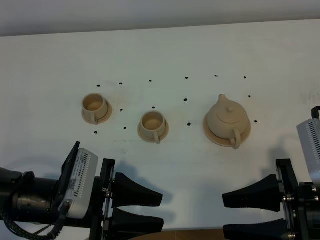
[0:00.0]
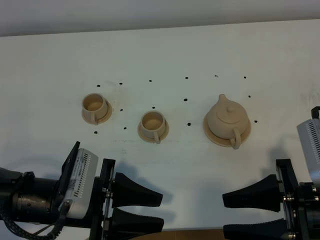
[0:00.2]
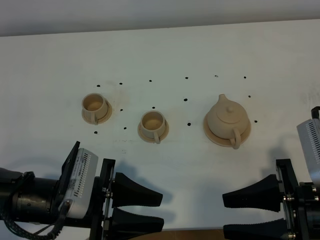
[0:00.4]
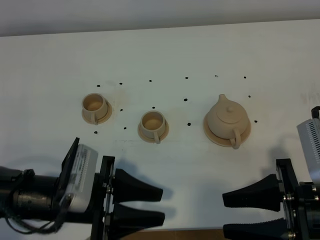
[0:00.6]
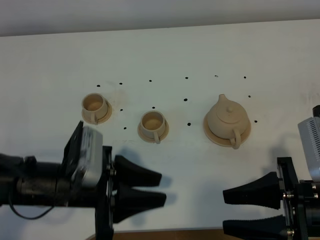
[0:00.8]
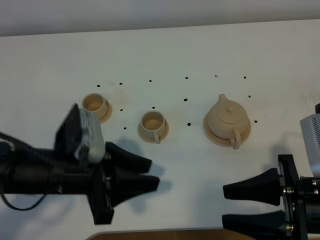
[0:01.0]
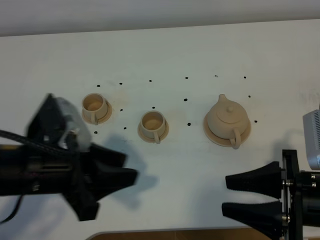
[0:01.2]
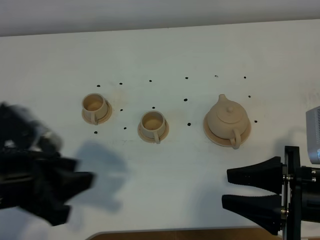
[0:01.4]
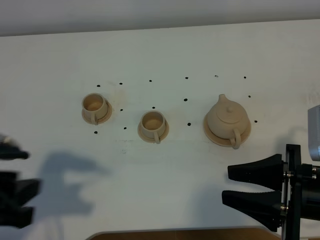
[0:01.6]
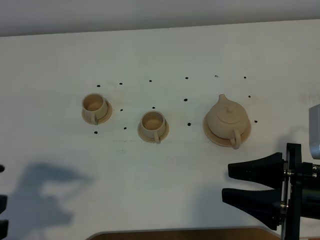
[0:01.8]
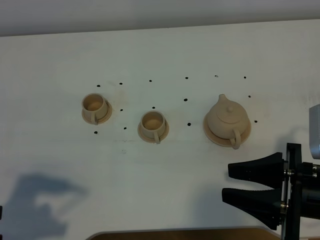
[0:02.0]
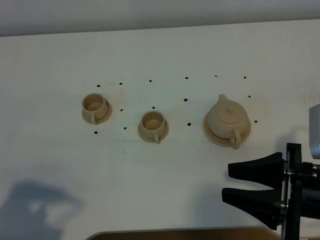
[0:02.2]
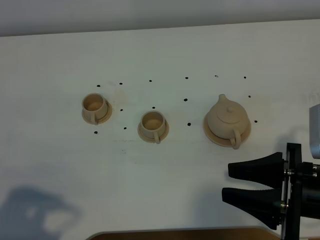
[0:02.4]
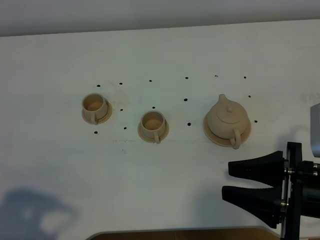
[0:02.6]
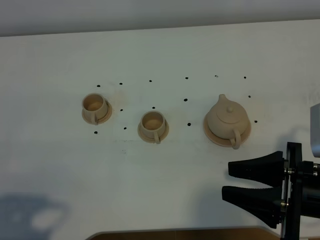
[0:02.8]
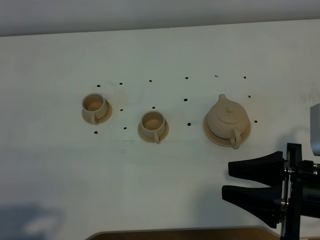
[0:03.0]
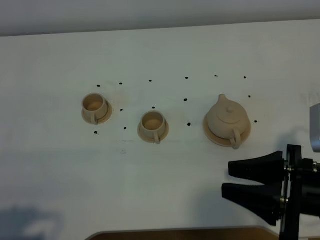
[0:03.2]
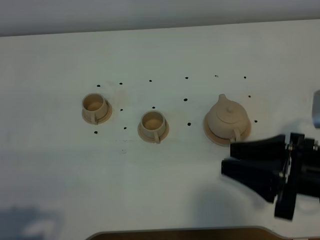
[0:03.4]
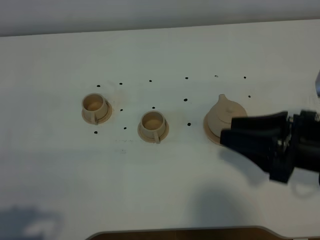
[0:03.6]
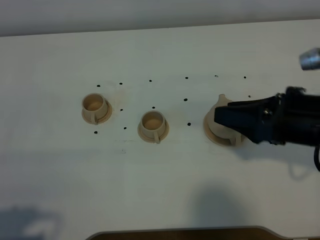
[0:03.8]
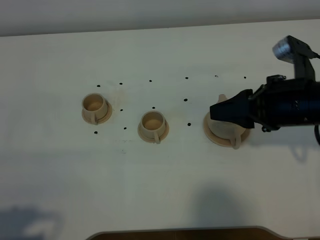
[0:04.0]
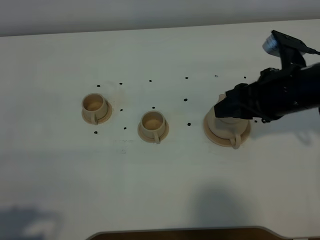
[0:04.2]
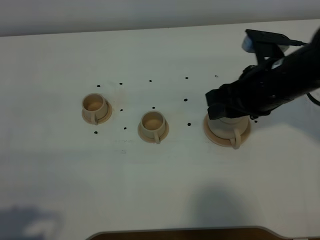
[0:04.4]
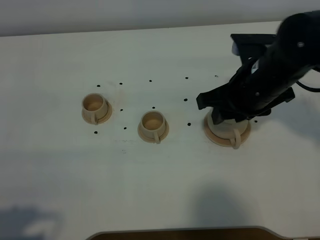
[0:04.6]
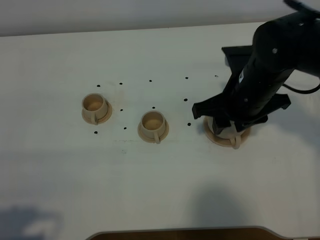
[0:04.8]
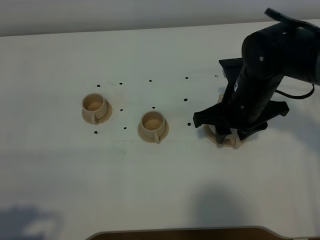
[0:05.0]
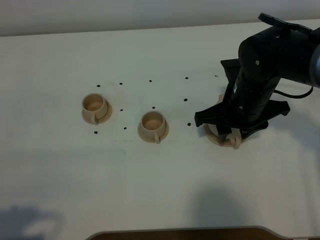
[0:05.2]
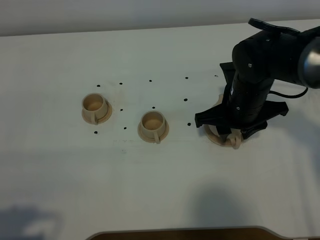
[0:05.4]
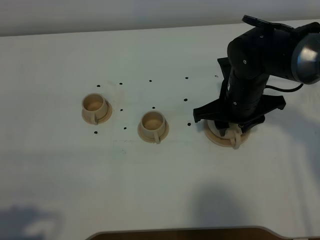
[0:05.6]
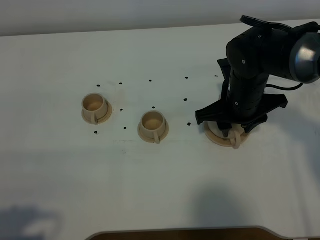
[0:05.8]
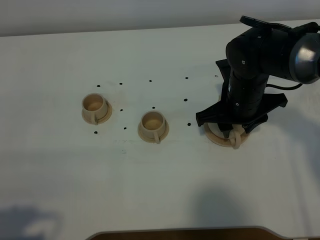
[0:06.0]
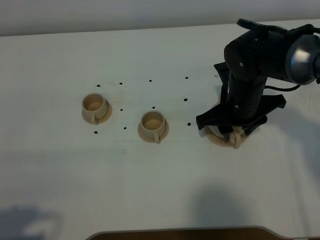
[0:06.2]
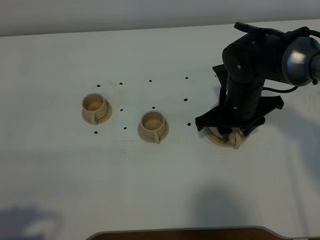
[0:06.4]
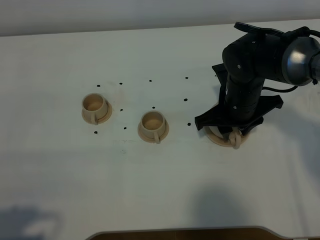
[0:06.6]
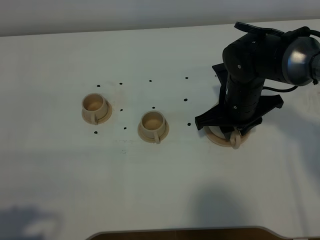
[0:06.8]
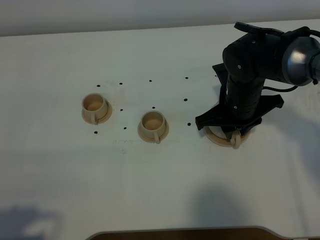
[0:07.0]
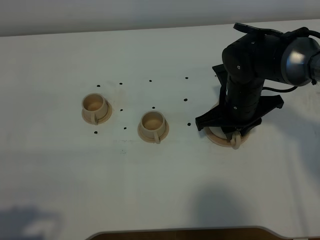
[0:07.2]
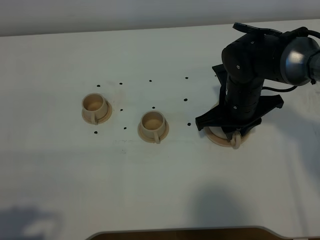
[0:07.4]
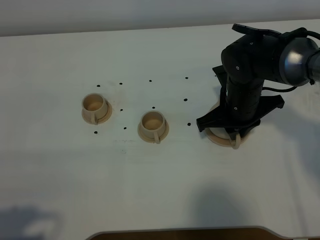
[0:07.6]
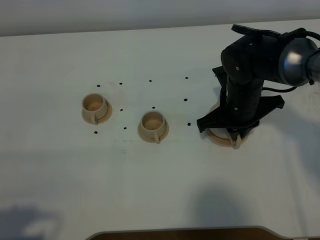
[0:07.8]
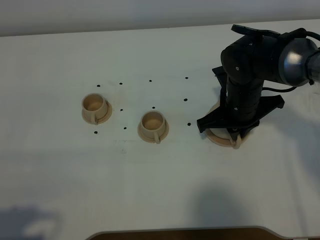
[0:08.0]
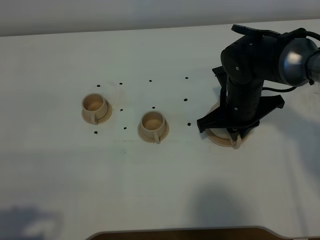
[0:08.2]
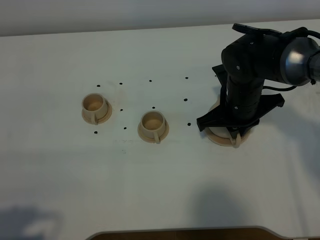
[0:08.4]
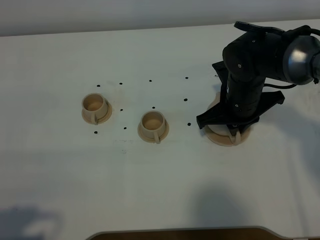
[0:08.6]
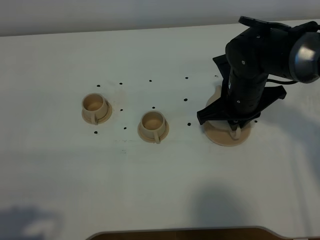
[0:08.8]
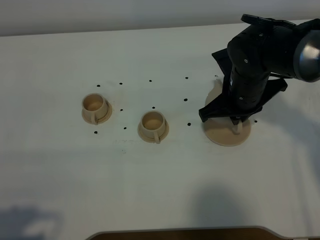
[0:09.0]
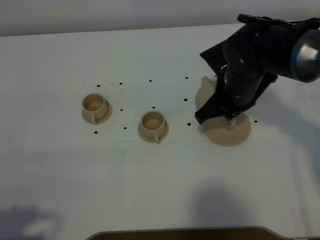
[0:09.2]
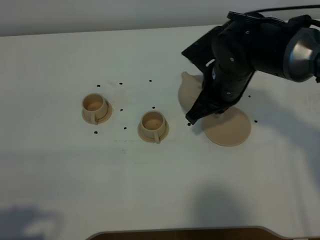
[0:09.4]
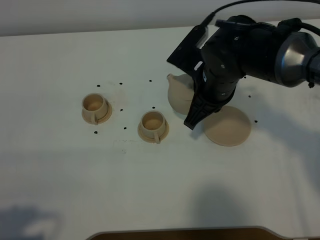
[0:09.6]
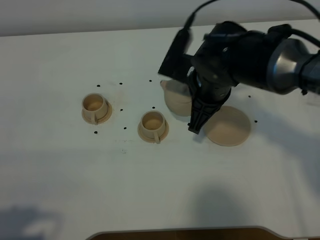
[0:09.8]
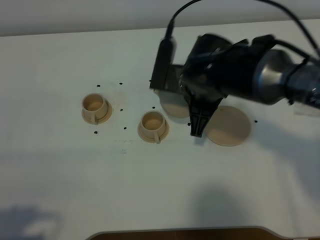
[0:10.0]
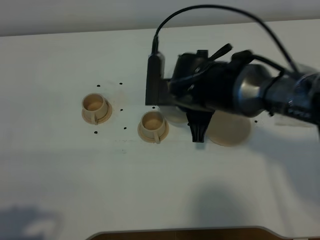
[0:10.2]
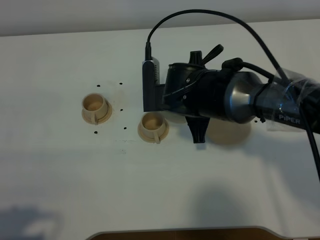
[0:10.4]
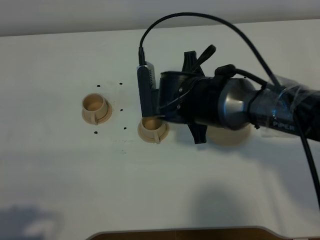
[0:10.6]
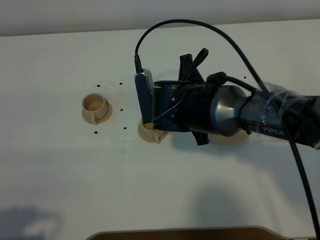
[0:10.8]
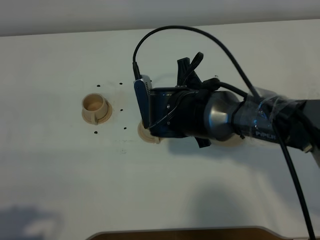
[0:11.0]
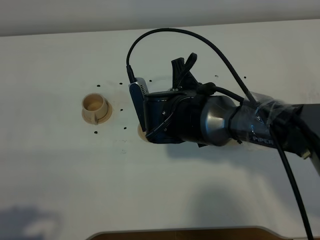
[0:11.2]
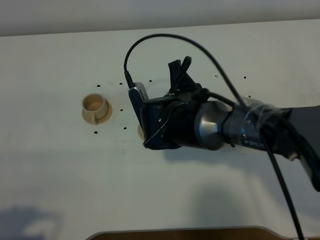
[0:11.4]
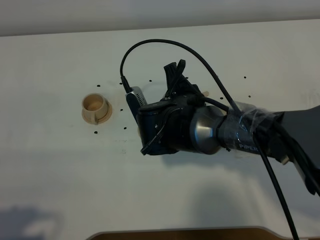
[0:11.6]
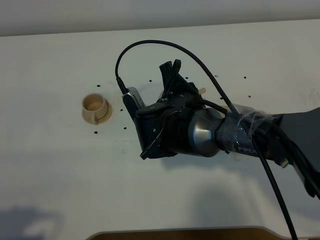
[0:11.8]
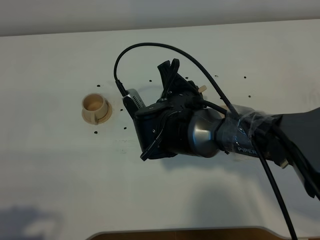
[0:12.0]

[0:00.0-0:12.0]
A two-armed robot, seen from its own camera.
Task of the whole recording: grasp the brown teapot and pour the tea into the two brown teacups one by one, put the brown teapot back in its original place.
Step, 0:00.0 to 0:08.6: Pick up the teapot with the right gripper.
0:00.0 to 0:01.6: The left gripper shifts roughly 15 cm upward and to the left.
0:01.6 to 0:03.0: The left gripper goes roughly 10 cm backward and to the left.
0:03.0 to 0:04.4: The right gripper heads forward, covering some 15 cm.
0:04.4 to 0:06.0: The right gripper shifts about 5 cm downward.
0:06.0 to 0:07.6: The right gripper closes.
0:07.6 to 0:09.0: The grippers make only small movements.
0:09.0 to 0:10.4: The right gripper travels to the left by approximately 10 cm.

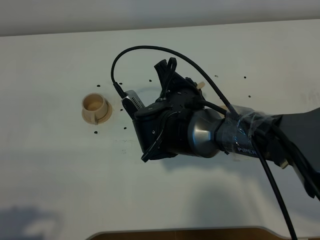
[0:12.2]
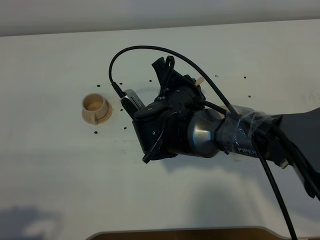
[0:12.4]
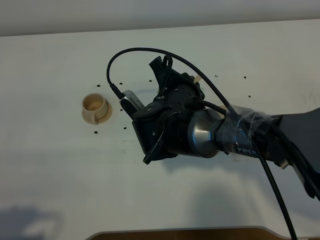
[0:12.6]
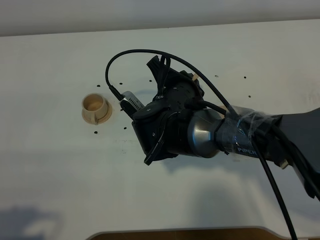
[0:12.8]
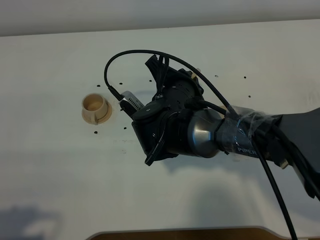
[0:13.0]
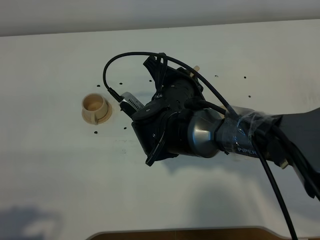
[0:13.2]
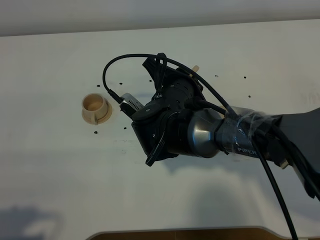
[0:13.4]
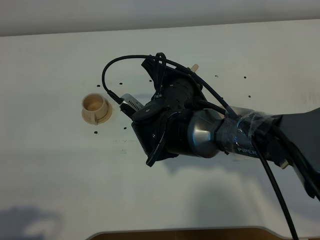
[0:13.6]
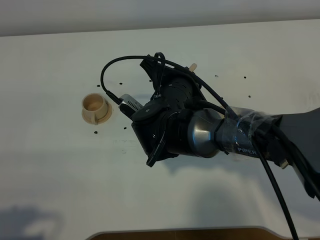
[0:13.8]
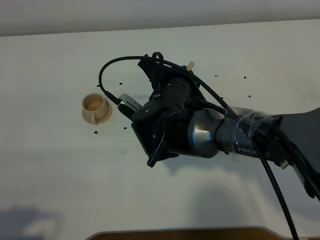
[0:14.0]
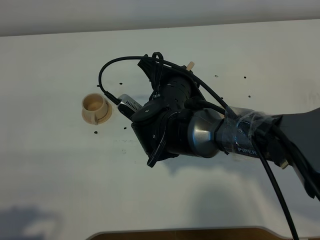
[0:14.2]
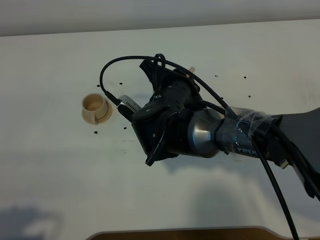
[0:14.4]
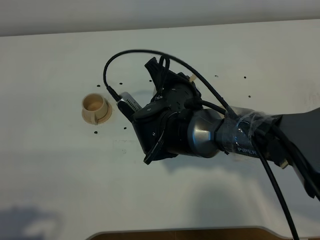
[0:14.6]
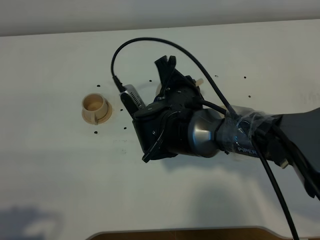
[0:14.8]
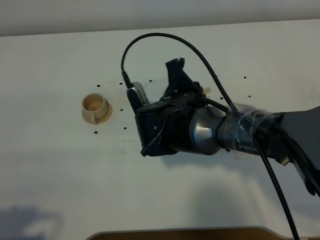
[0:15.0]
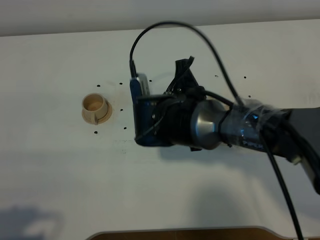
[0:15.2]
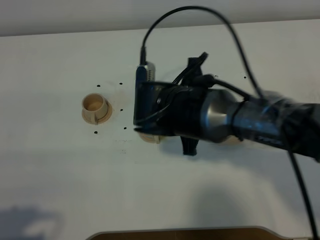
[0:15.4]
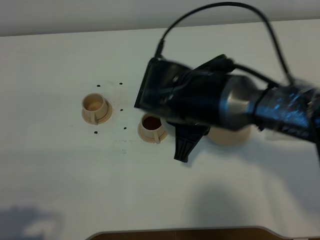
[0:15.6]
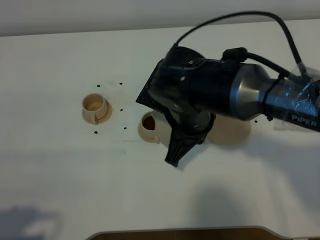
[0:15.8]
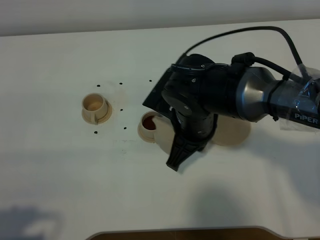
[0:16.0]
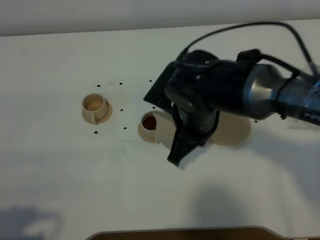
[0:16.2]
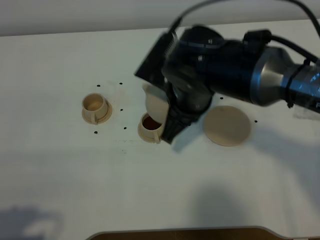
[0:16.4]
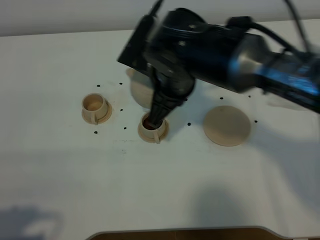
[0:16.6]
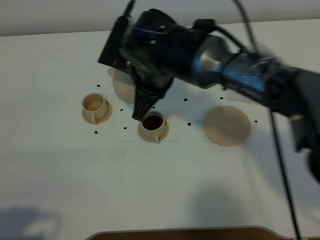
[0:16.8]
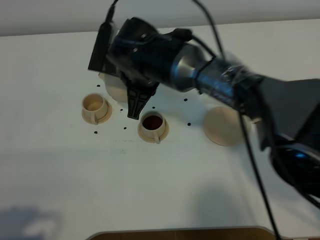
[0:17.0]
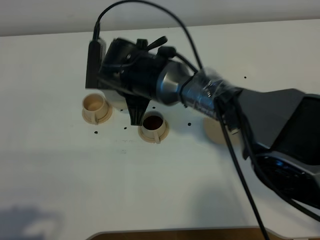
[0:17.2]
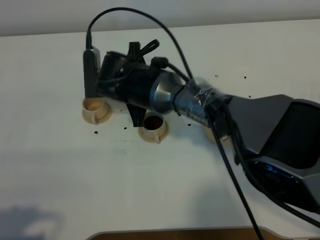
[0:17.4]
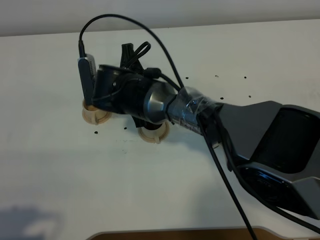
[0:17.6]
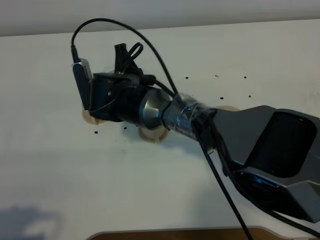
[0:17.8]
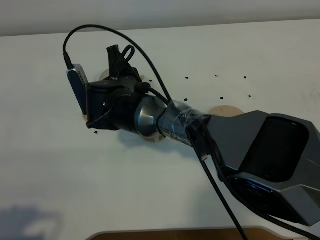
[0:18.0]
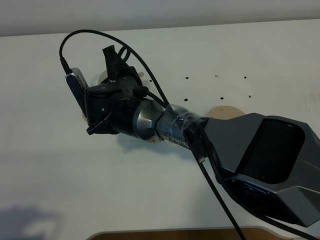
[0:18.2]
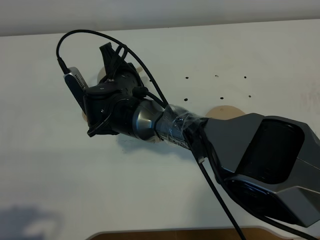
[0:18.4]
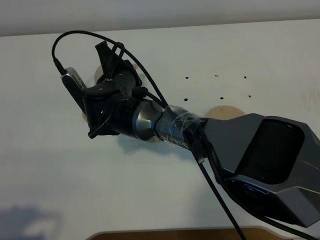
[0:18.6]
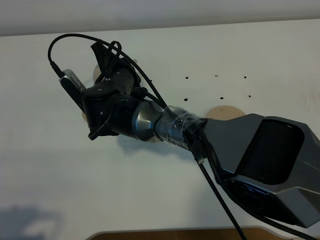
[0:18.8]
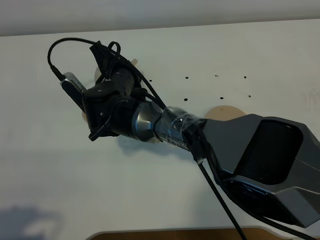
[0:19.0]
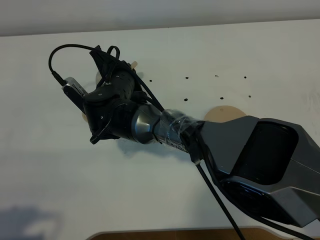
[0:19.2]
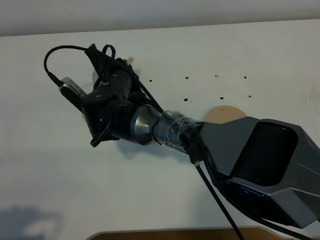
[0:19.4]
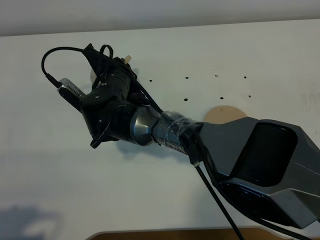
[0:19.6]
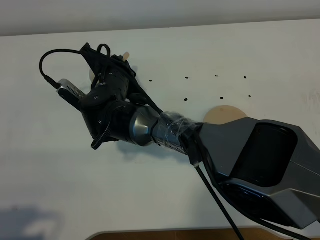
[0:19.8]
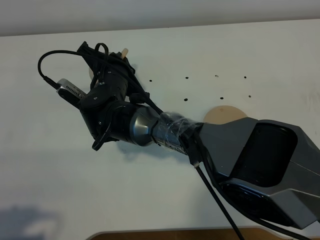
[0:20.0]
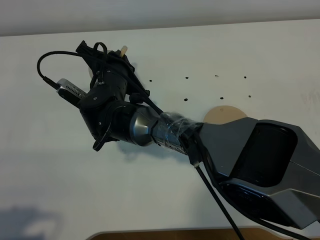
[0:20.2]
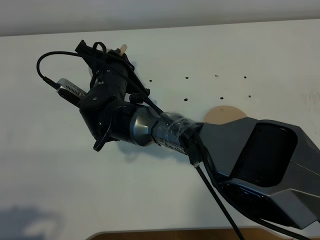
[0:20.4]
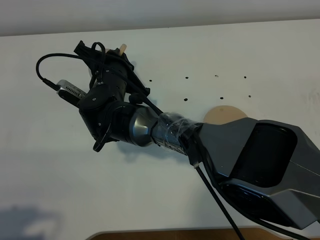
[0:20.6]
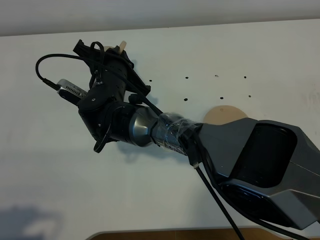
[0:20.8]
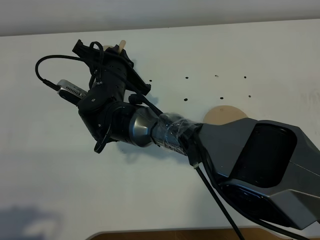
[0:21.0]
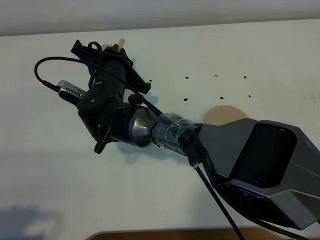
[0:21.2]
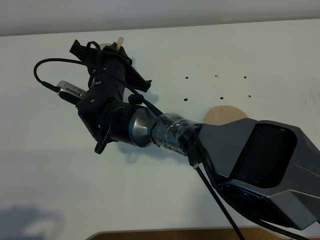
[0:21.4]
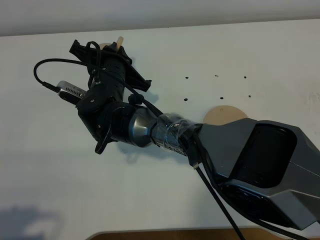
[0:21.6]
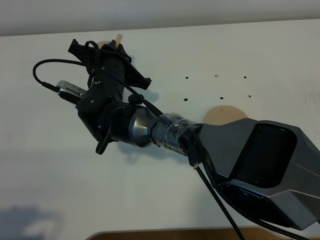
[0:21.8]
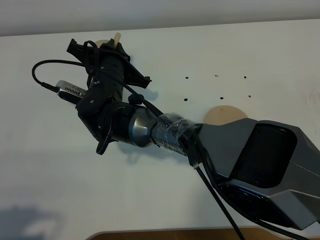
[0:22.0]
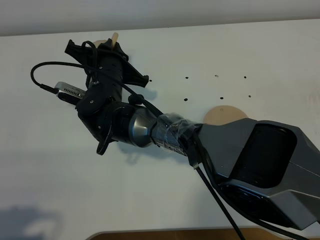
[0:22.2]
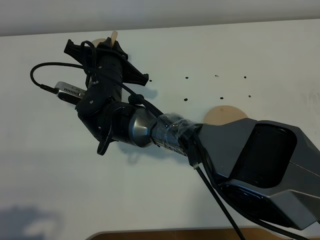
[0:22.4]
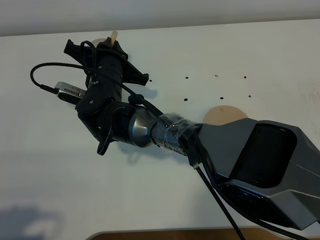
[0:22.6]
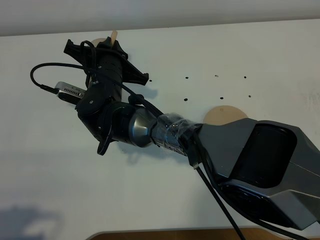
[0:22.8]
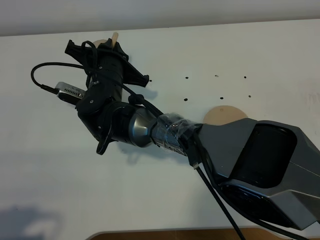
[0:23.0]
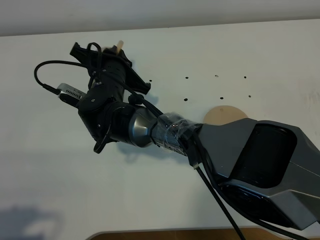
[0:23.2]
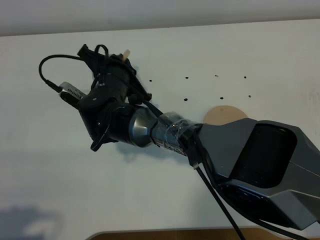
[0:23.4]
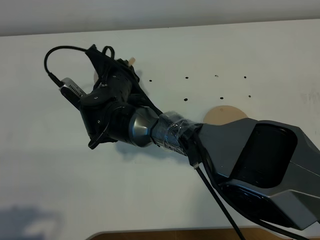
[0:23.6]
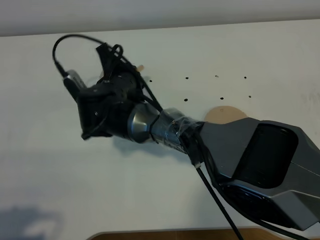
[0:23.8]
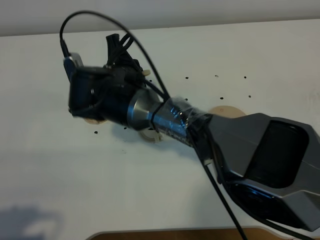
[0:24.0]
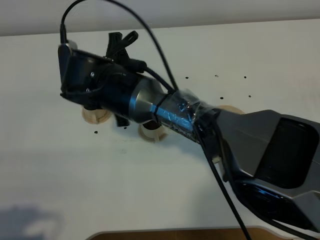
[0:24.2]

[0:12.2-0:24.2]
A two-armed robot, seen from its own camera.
Task of the whole recording: grasp the brown teapot and pour the tea into the two brown teacups one by one, put the brown teapot back in its original place.
Step, 0:12.2 to 0:24.0: Pour tea into the teacup with the right gripper.
0:12.2 to 0:13.8: There are only small adjustments of the grippers.
0:15.2 to 0:16.6: The right gripper goes about 5 cm upward.
0:16.6 to 0:18.2: The right gripper moves downward and to the left, approximately 15 cm.
0:19.8 to 0:22.6: The grippers stay close to where they were, moving slightly.
0:22.6 to 0:24.2: The right gripper ends up approximately 5 cm from where it was.
